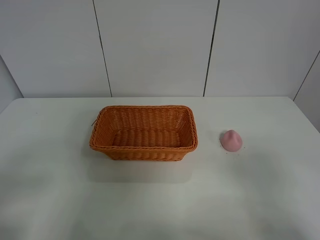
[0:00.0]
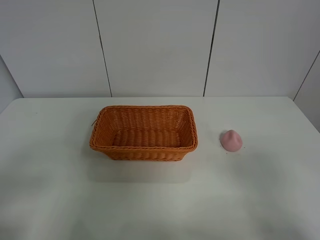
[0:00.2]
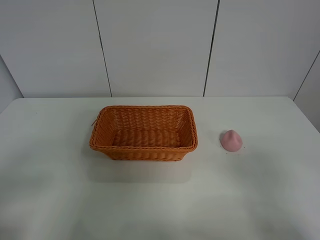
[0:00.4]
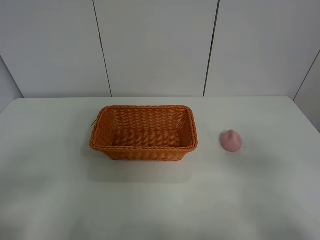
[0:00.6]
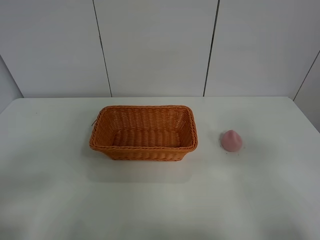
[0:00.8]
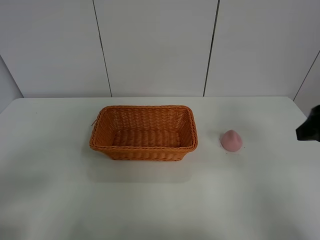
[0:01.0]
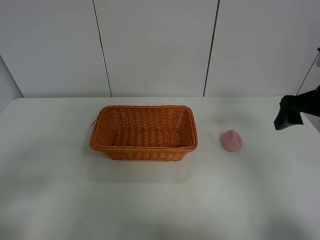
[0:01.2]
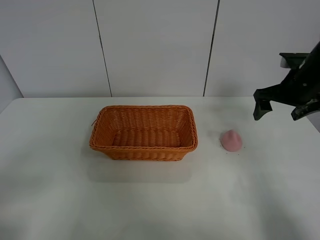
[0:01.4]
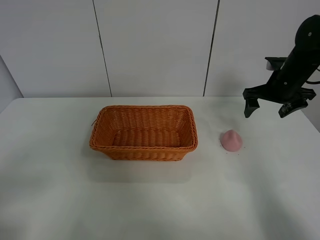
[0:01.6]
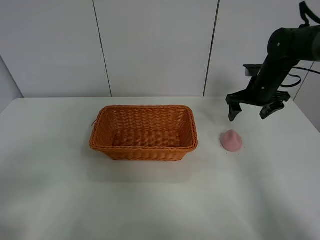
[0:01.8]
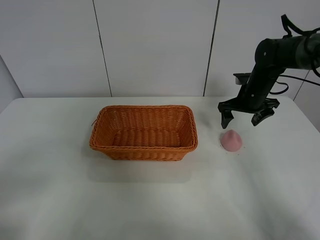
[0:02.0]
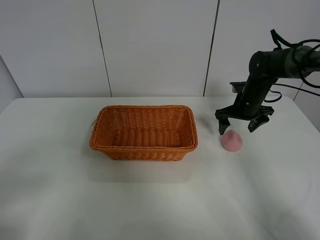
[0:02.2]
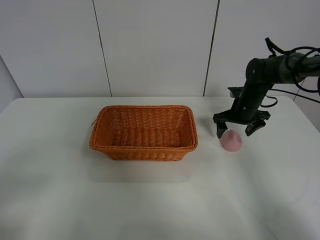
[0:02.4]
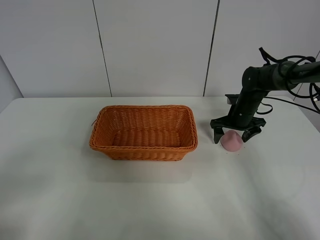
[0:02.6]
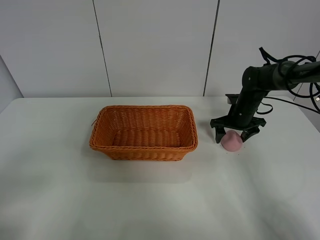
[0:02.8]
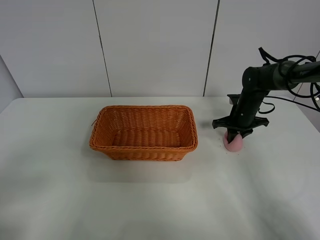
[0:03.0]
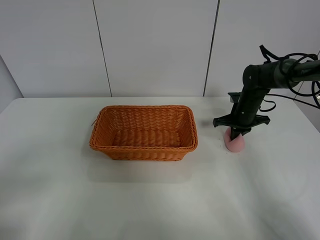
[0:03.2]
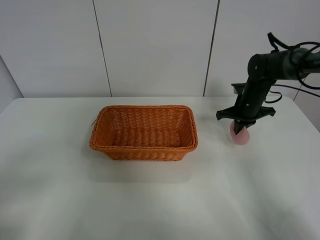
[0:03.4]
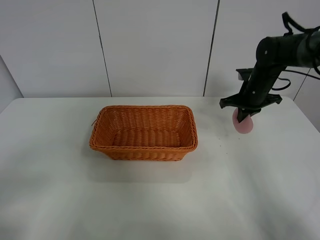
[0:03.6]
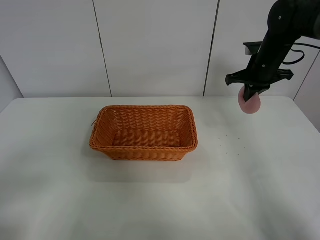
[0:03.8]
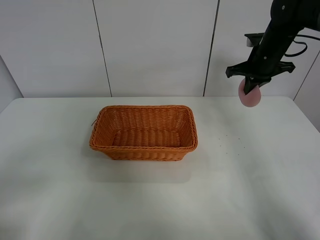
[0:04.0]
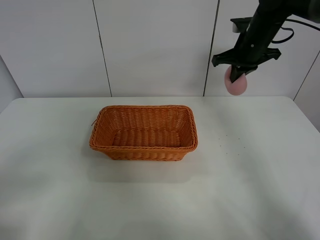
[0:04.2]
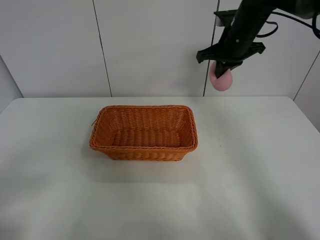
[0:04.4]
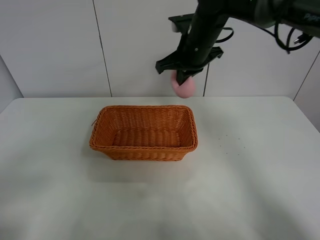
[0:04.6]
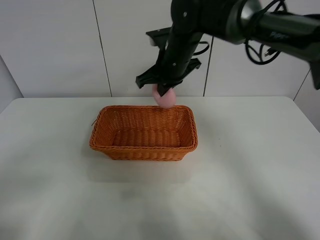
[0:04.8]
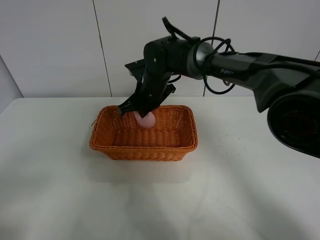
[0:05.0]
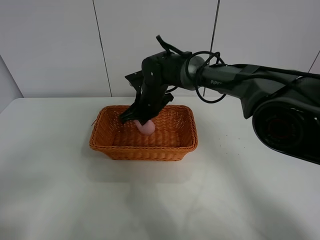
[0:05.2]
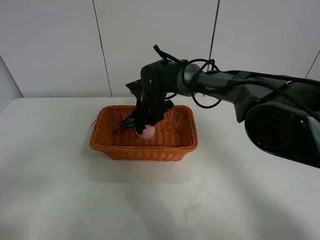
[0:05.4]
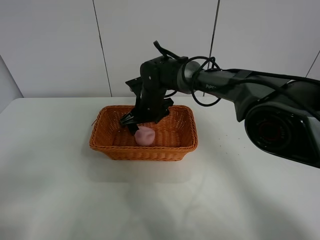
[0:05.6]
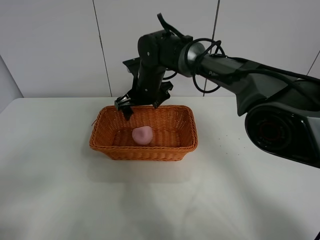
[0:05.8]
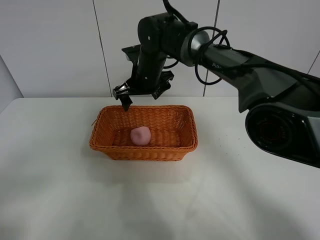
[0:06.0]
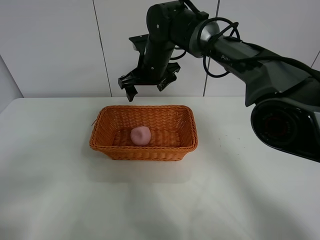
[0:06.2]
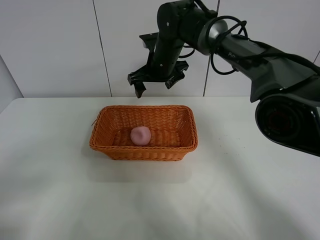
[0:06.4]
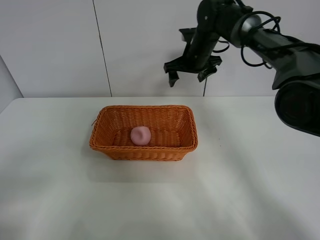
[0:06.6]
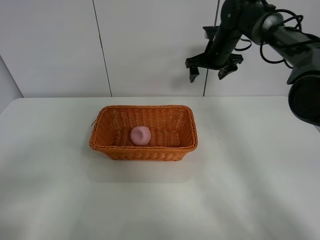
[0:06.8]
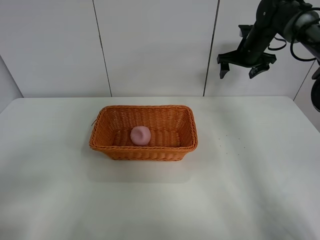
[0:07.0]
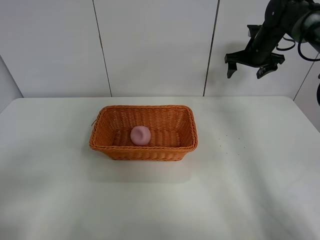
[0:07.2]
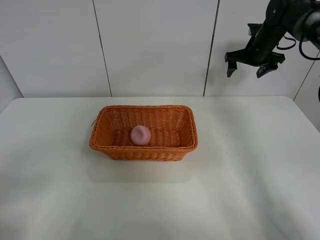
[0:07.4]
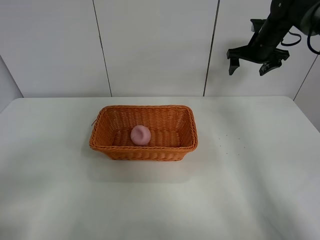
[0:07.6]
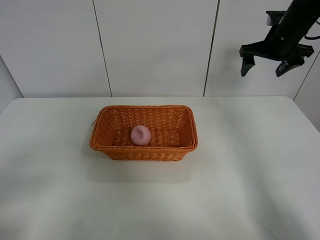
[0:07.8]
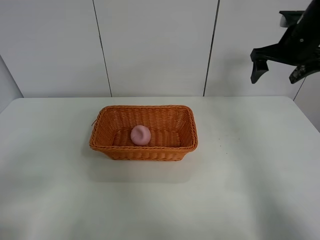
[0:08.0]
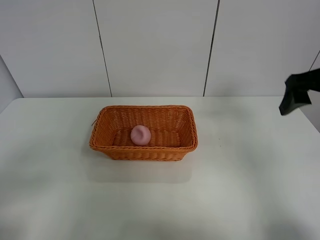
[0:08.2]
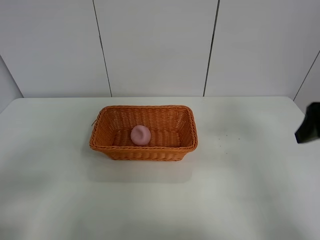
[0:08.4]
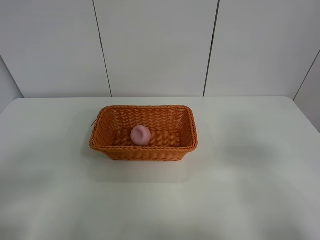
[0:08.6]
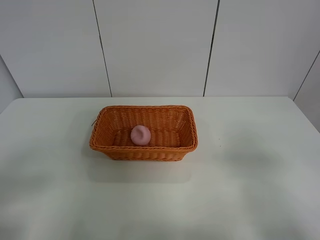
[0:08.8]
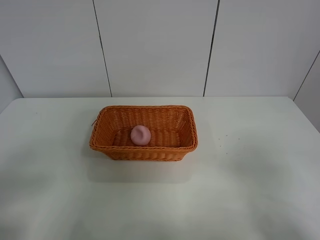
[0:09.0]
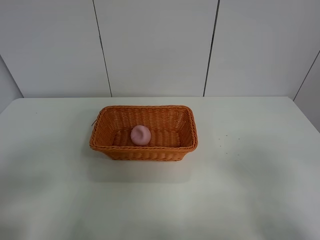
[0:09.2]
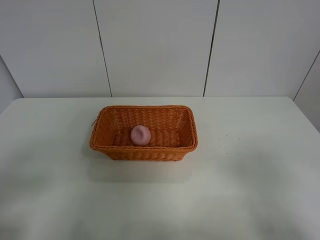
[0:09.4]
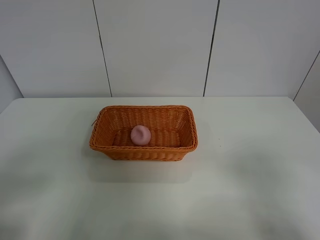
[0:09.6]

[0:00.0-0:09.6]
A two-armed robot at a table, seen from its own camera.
Step, 0:00.0 to 0:03.2: Grasp the peach with right gripper.
Step, 0:03.4 to 0:06.4: Place the peach in the basket with right gripper.
0:00.0 to 0:01.6: The right gripper shifts roughly 40 cm forward.
0:01.6 to 0:03.2: The right gripper shifts some 10 cm downward, and closes.
0:03.2 to 0:04.8: The right gripper goes some 25 cm to the left and upward.
0:04.8 to 0:06.4: The right gripper travels forward by approximately 5 cm, reaches approximately 10 cm downward, then returns, and opens up.
0:06.4 to 0:08.0: The right gripper travels to the right by about 25 cm.
0:08.0 to 0:09.6: The right gripper moves backward, about 35 cm.
